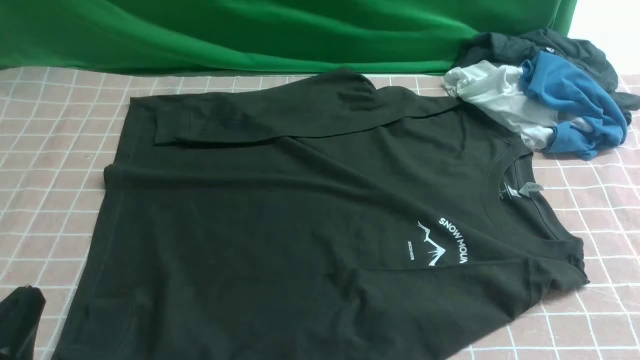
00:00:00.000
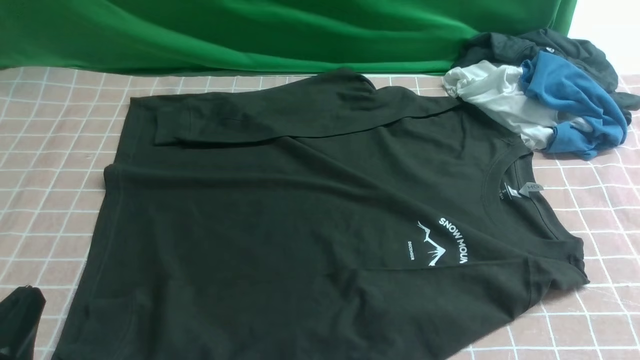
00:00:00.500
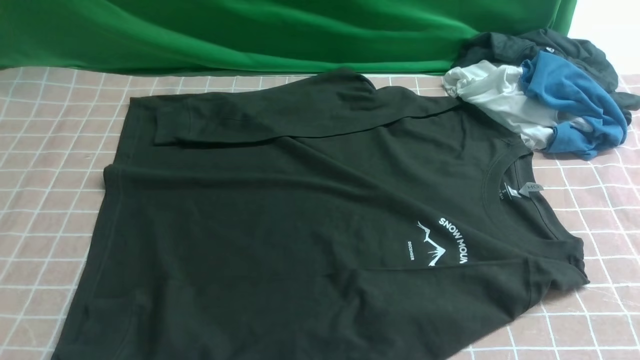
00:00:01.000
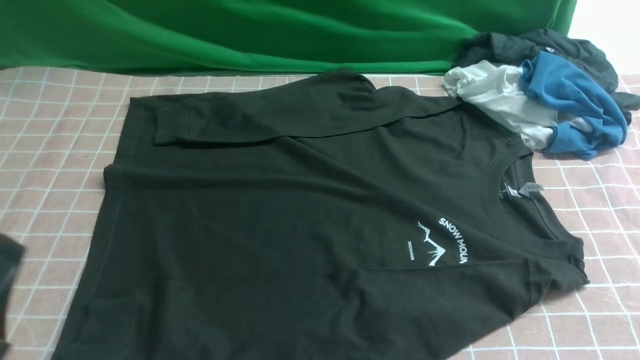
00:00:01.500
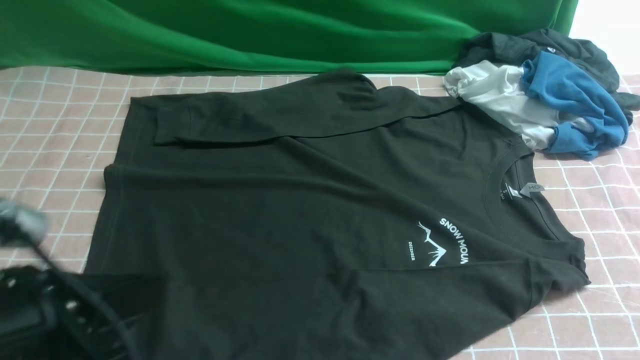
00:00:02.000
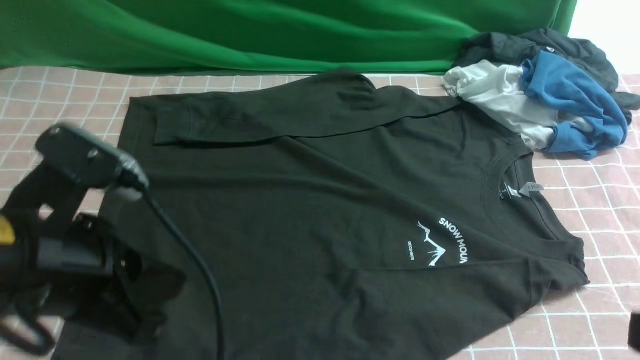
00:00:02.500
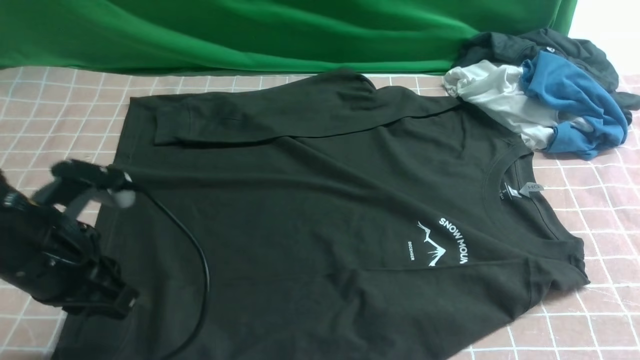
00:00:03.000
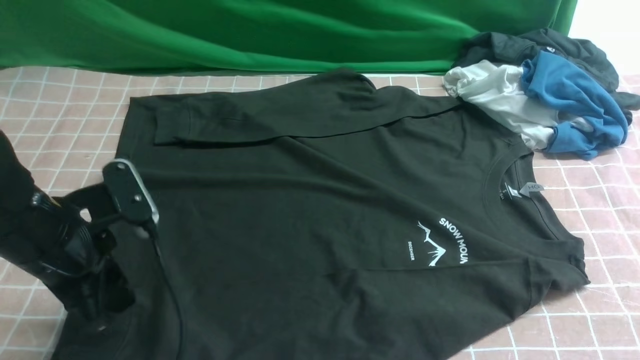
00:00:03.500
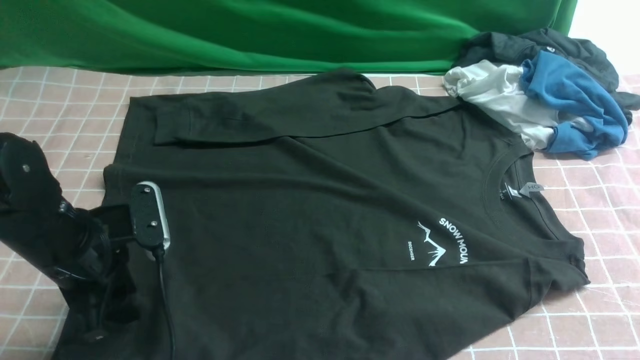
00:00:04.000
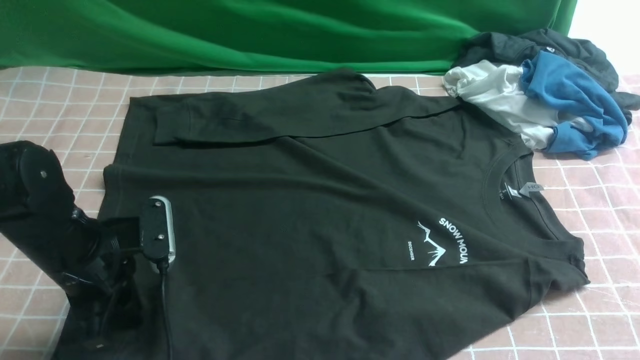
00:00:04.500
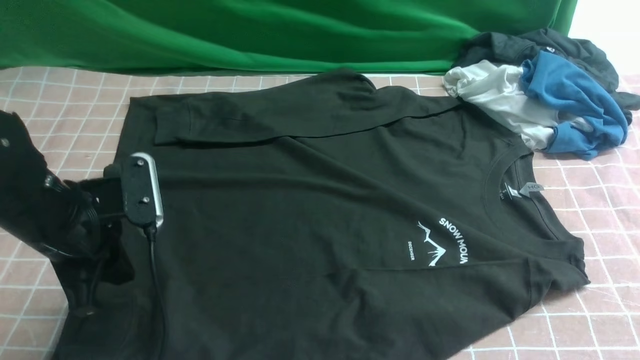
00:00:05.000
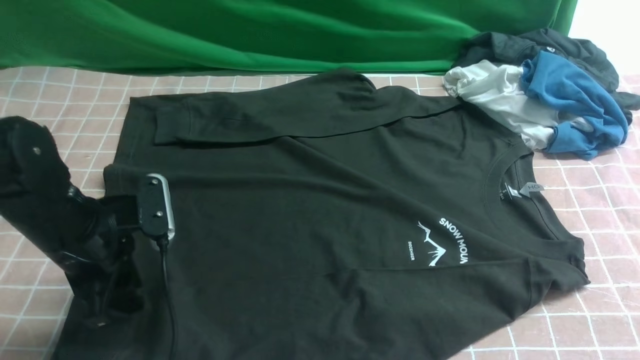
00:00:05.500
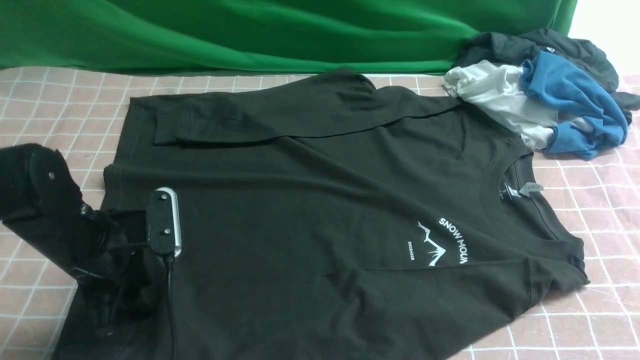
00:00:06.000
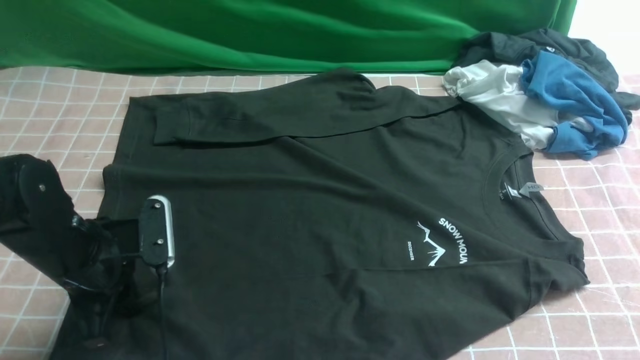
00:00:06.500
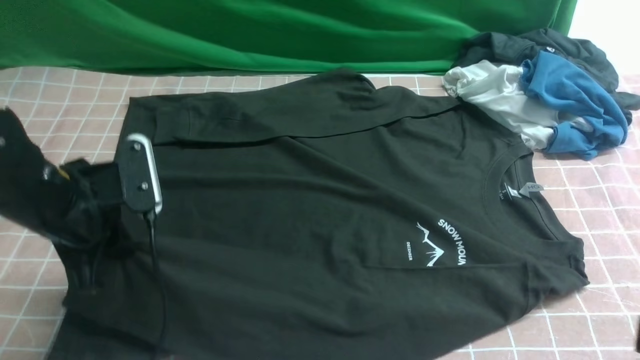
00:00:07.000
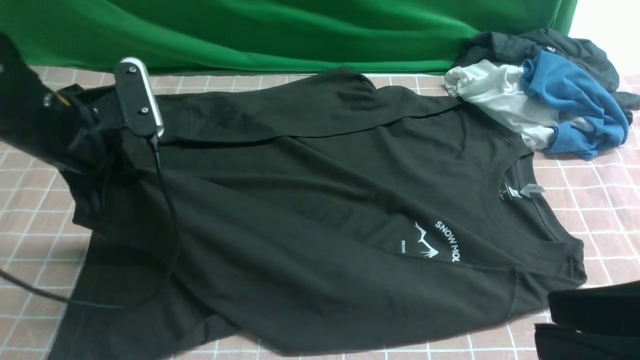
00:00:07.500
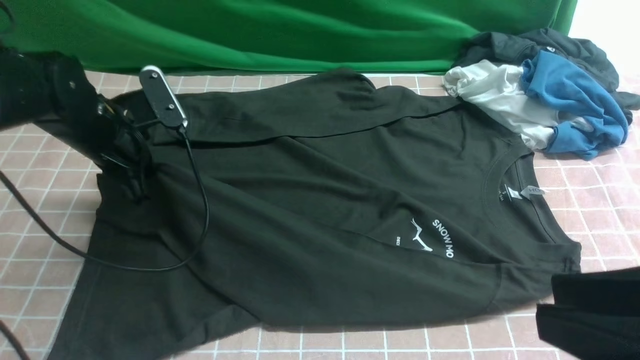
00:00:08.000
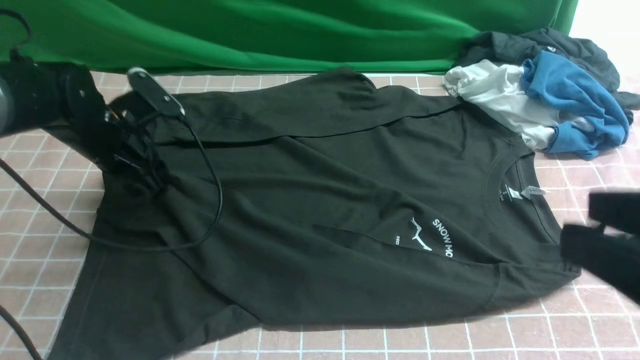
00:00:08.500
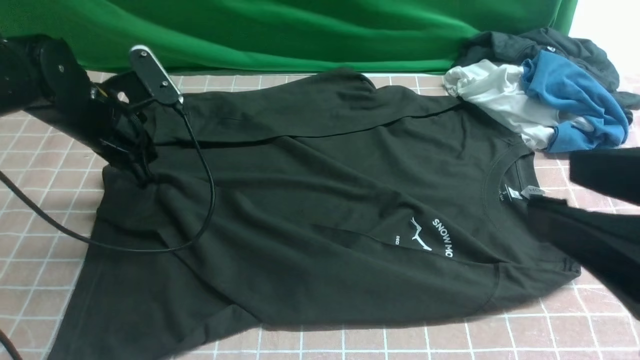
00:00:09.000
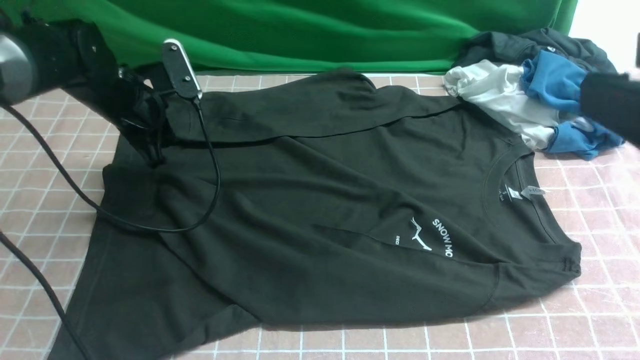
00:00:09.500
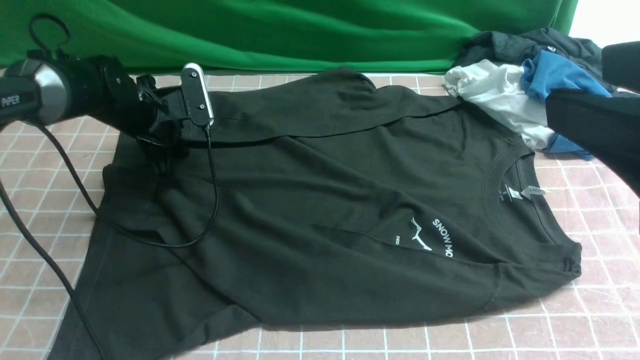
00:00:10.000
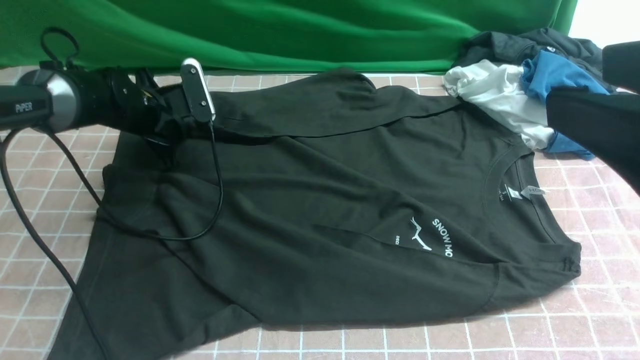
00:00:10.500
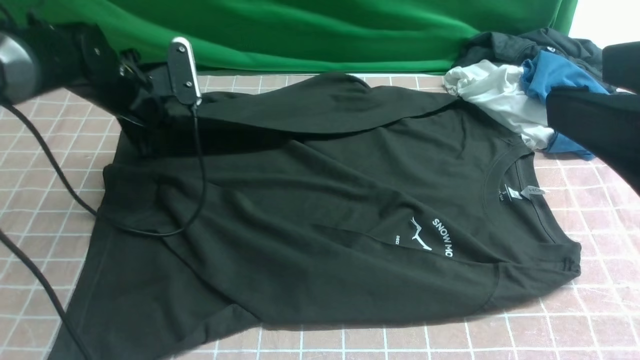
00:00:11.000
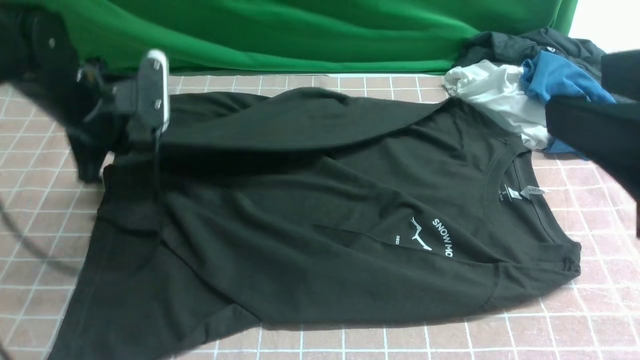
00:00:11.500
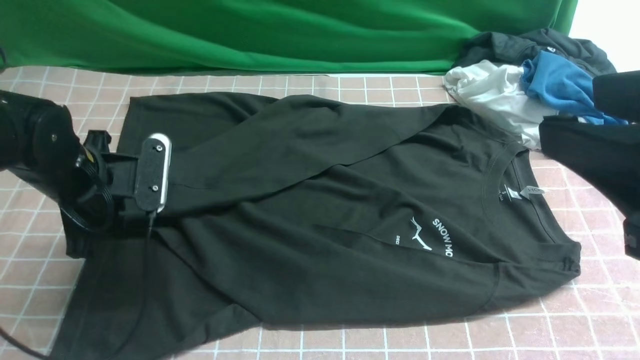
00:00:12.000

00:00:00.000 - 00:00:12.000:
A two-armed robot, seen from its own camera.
Step, 00:00:00.000 - 00:00:06.500: use the left arm to clamp the cuff closest to it.
Step, 00:00:07.000 - 00:00:08.500: use the left arm to drag and place the cuff at the centered position on the left edge of the fabric.
Step, 00:00:09.000 - 00:00:10.500: use the left arm to clamp the cuff farthest from it.
00:00:00.000 - 00:00:02.000: The left gripper moves upward and to the right, about 10 cm.
00:00:02.000 - 00:00:04.000: The left gripper moves forward and downward, some 20 cm, and opens its fingers.
00:00:04.000 - 00:00:06.000: The left gripper closes and opens again.
00:00:06.000 - 00:00:08.000: The right gripper changes place by some 5 cm; the left gripper shifts about 10 cm forward, and closes up.
00:00:08.000 - 00:00:10.000: The right gripper goes some 10 cm upward. Meanwhile the left gripper shifts roughly 10 cm forward, and opens its fingers.
00:00:10.000 - 00:00:12.000: The left gripper heads backward, covering some 15 cm, and closes its fingers.

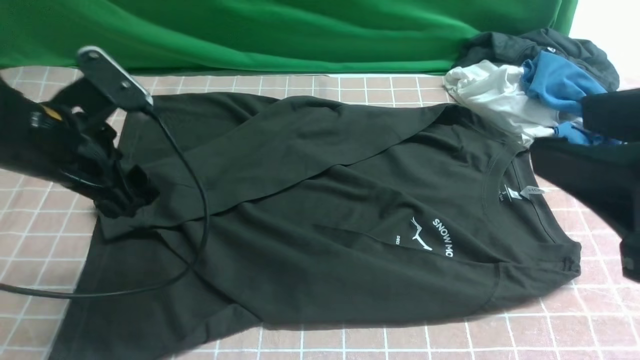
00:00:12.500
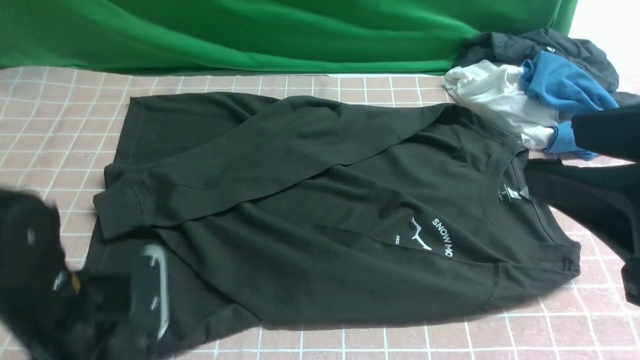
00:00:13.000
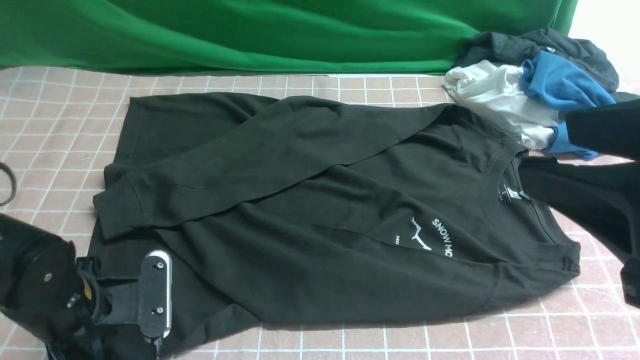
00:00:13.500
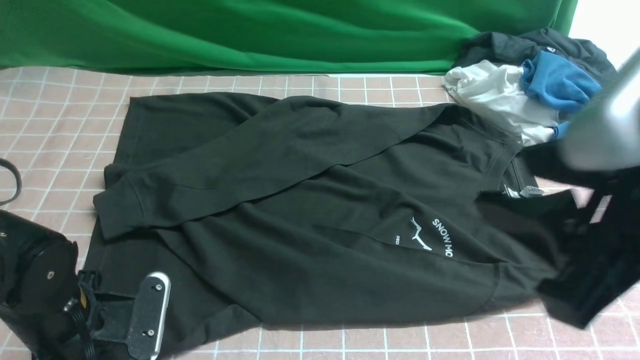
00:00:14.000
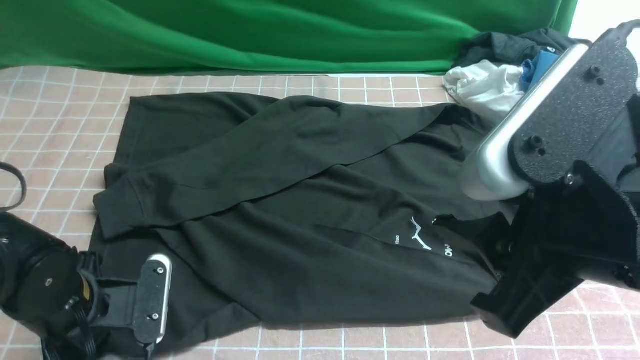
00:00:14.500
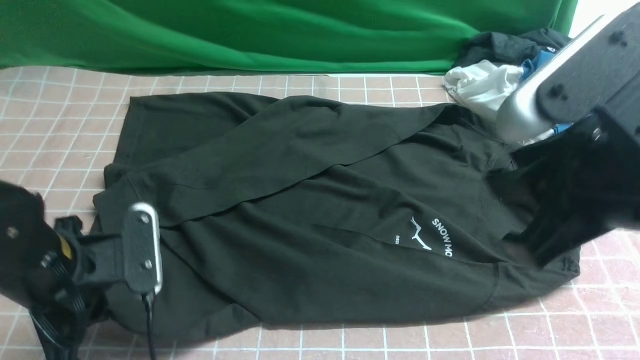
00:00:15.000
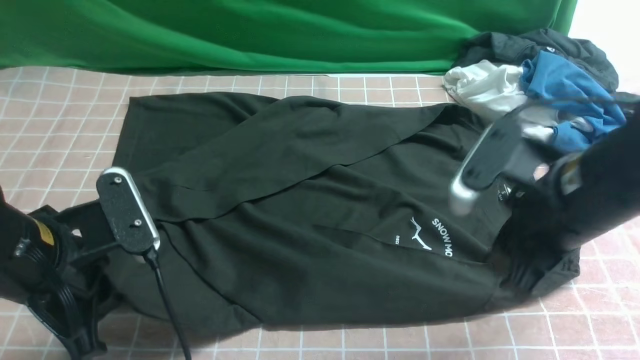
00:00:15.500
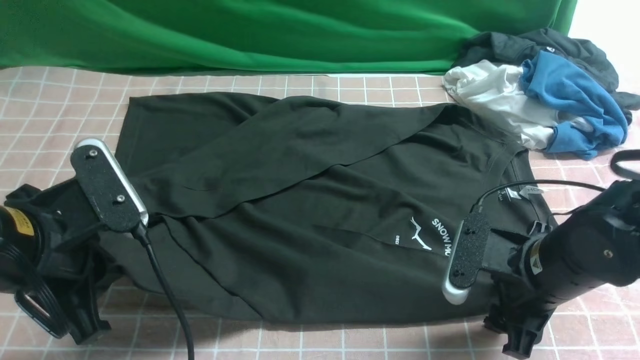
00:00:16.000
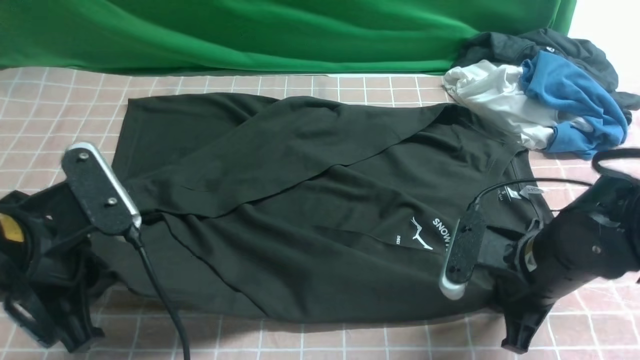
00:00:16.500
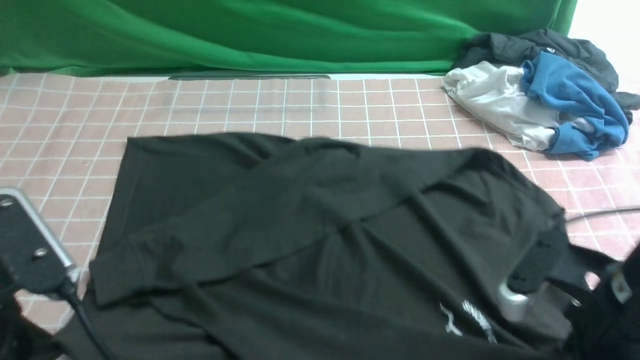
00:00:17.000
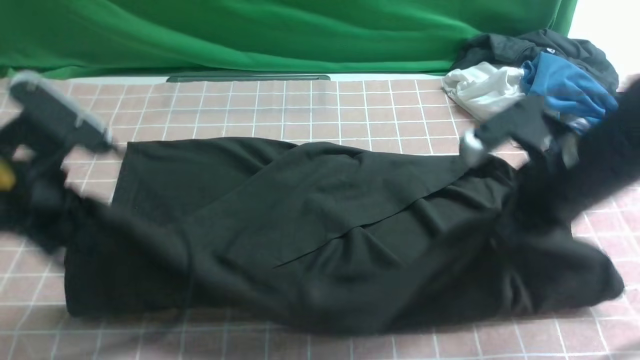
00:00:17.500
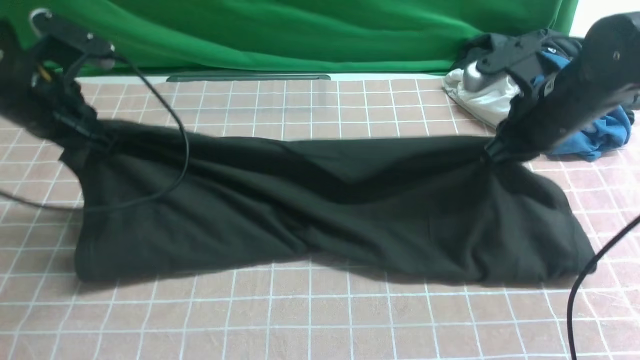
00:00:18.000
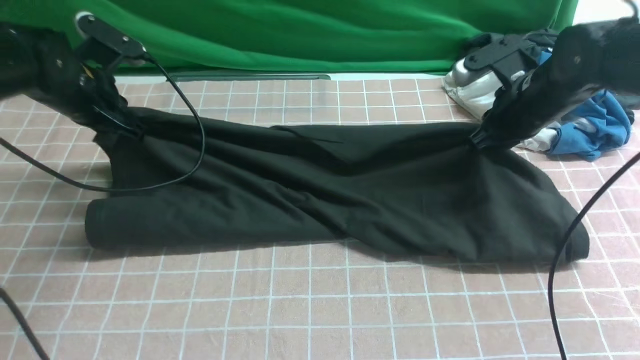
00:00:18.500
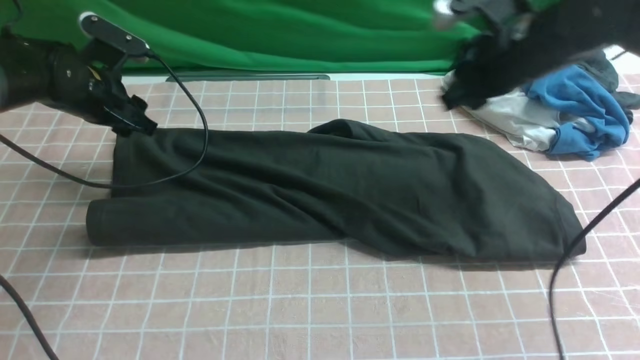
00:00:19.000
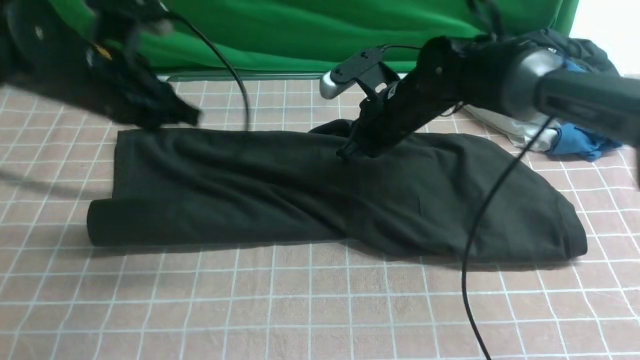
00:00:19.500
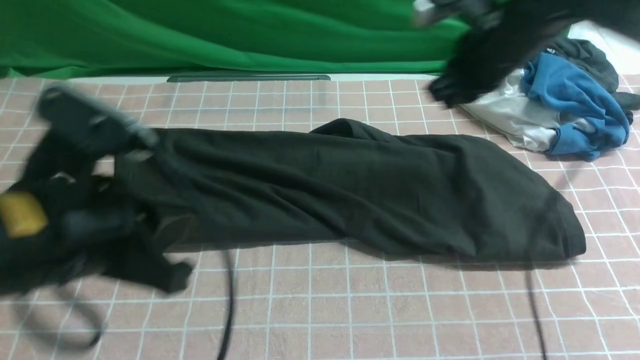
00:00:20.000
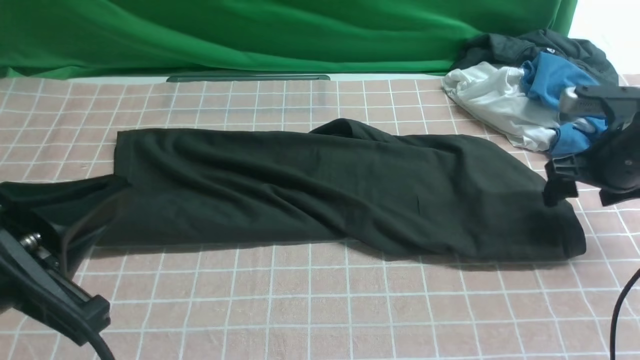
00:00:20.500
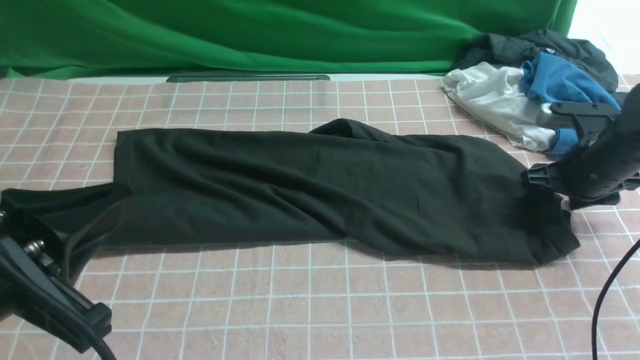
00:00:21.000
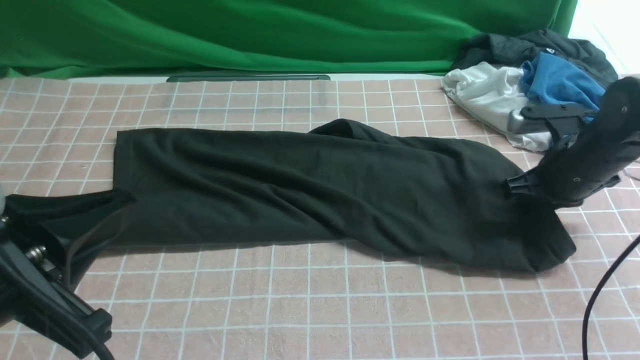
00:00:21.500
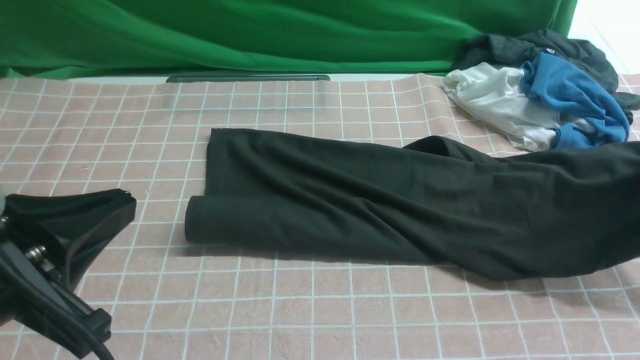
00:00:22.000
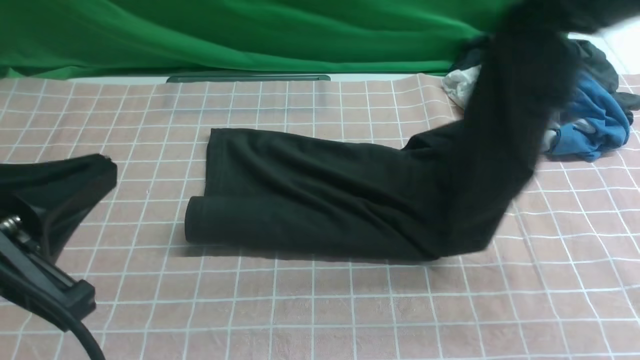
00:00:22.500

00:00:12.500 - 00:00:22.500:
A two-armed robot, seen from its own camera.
Step, 00:00:12.500 - 00:00:16.500: use both arms simultaneously to clamp the lower edge of the clothing fabric.
Step, 00:00:17.000 - 00:00:19.000: use both arms to drag the lower edge of the fabric forward and fold it over the upper edge.
Step, 00:00:19.500 - 00:00:21.500: use the right arm to clamp the right edge of the fabric.
00:00:12.500 - 00:00:14.500: The right gripper shifts approximately 5 cm to the left. Meanwhile the left gripper heads downward and backward, covering some 15 cm, and closes.
00:00:14.500 - 00:00:16.500: The right gripper is displaced downward and forward by roughly 20 cm, and closes its fingers; the left gripper heads upward, covering roughly 10 cm.
00:00:16.500 - 00:00:18.500: Both grippers move forward, roughly 20 cm.
00:00:18.500 - 00:00:20.500: The right gripper moves backward, approximately 5 cm, goes to the left and returns, approximately 15 cm each way, and opens its fingers; the left gripper is displaced backward by approximately 30 cm, and opens, then closes again.
00:00:20.500 - 00:00:22.500: The right gripper moves upward and to the left, roughly 20 cm, and closes up.
